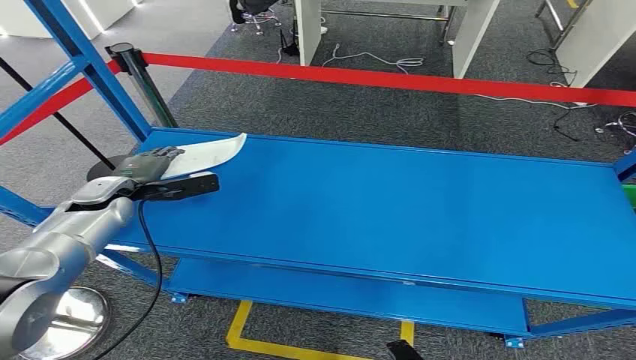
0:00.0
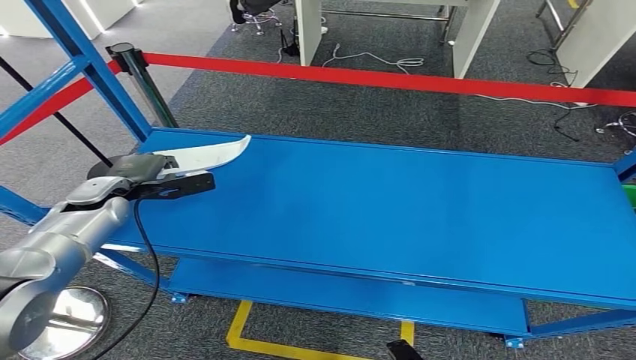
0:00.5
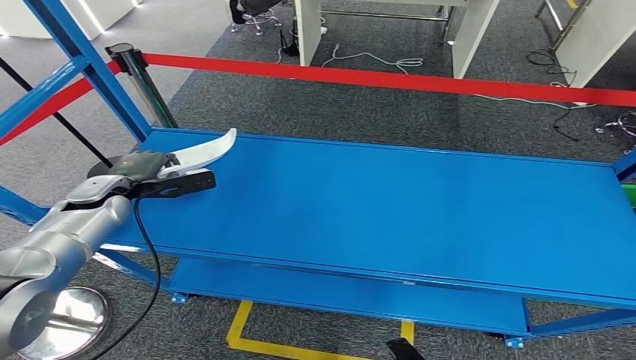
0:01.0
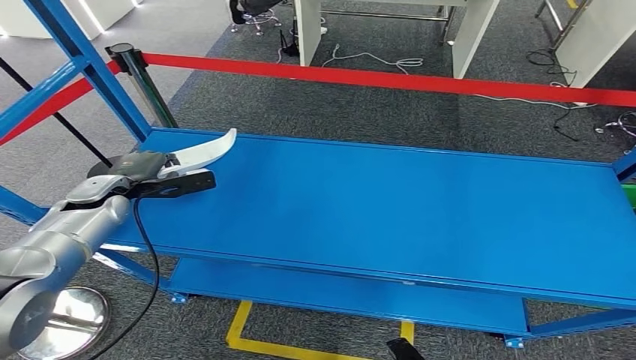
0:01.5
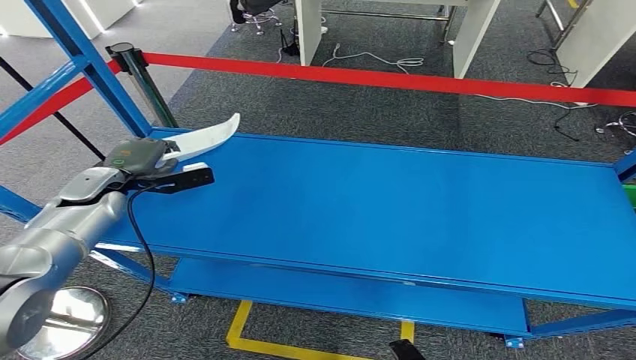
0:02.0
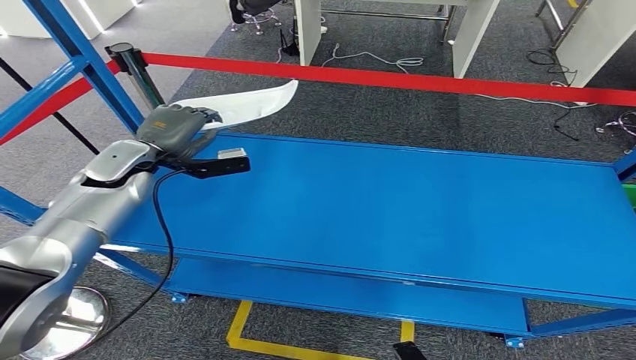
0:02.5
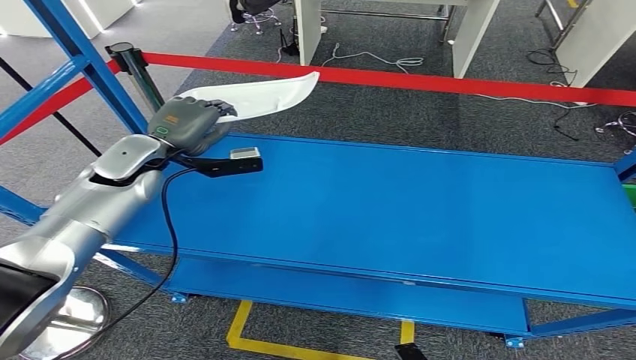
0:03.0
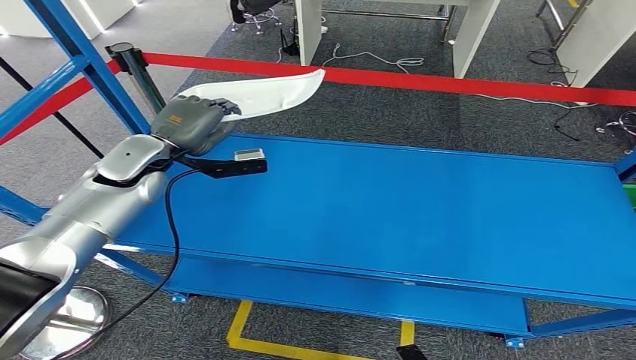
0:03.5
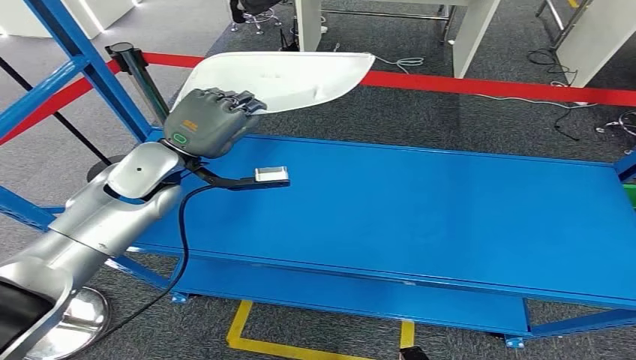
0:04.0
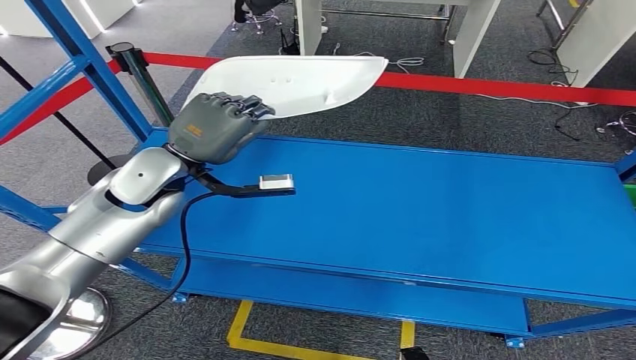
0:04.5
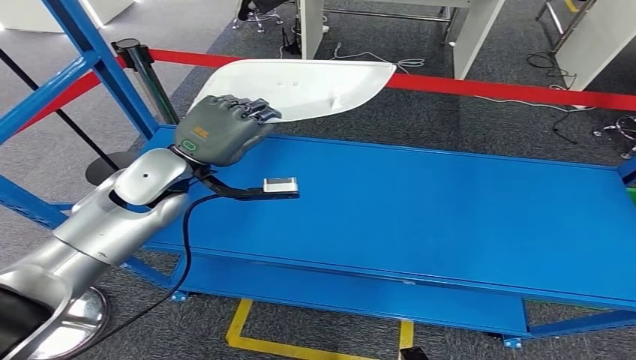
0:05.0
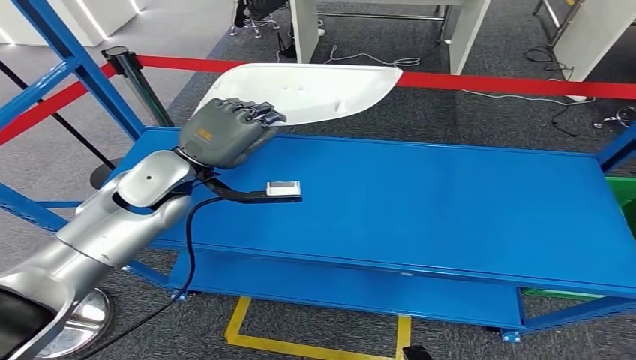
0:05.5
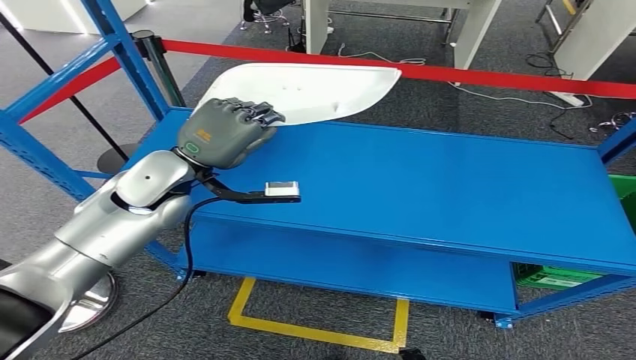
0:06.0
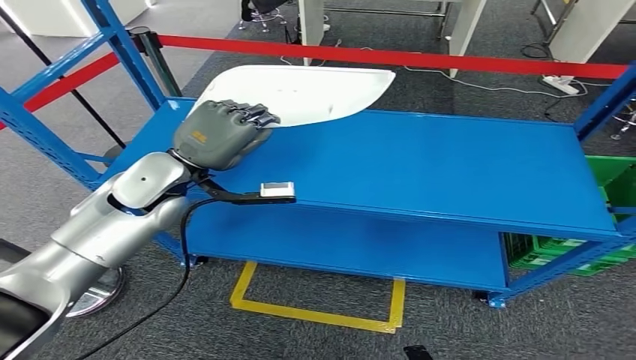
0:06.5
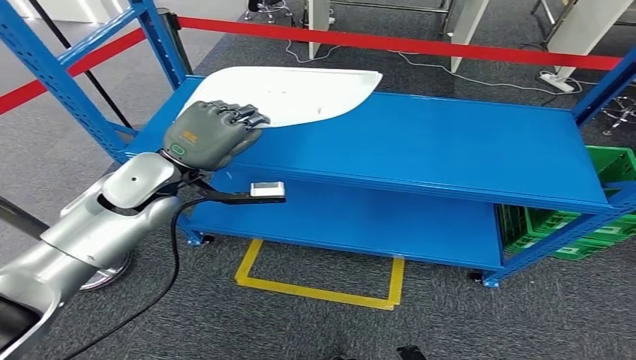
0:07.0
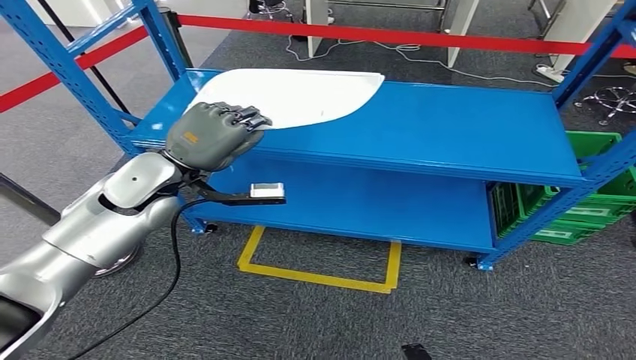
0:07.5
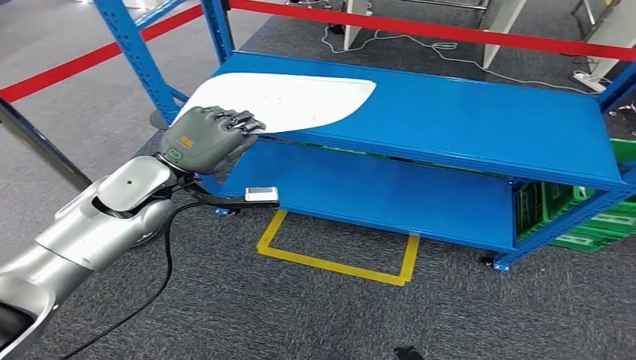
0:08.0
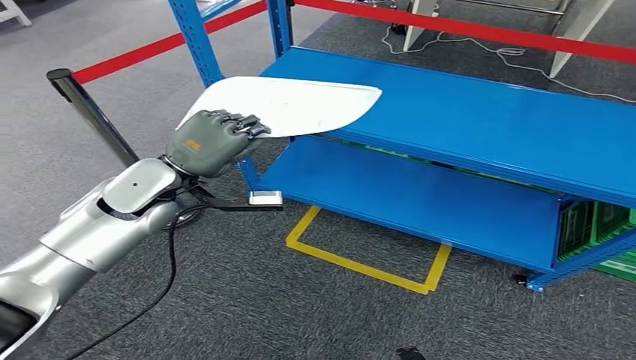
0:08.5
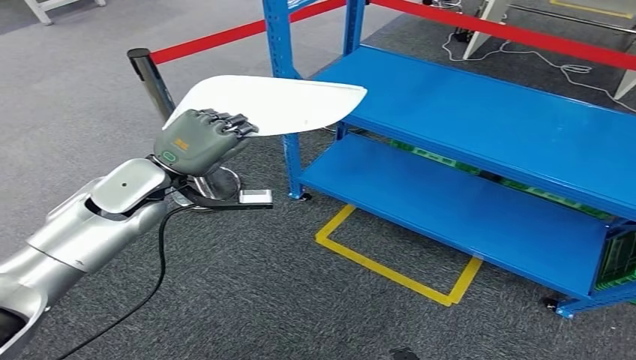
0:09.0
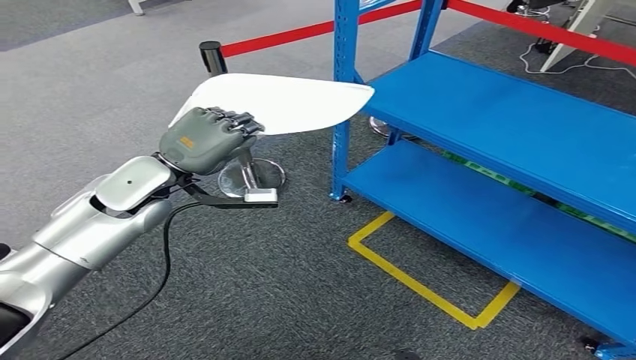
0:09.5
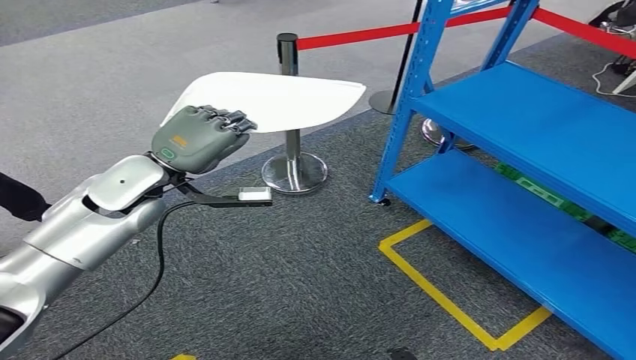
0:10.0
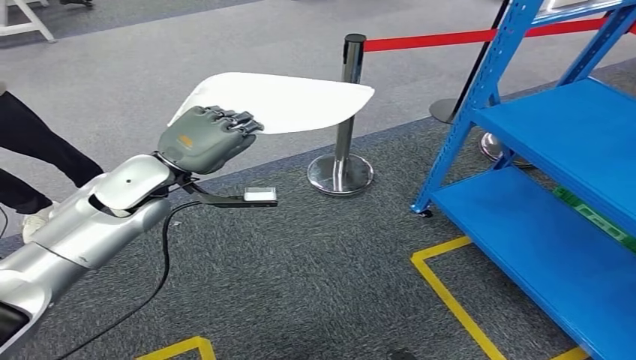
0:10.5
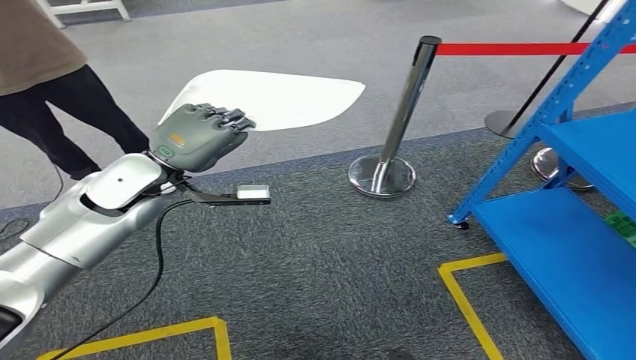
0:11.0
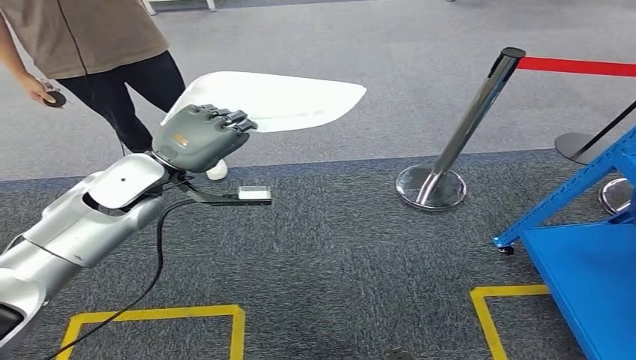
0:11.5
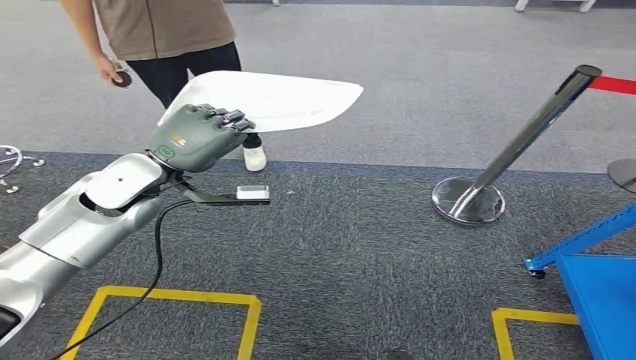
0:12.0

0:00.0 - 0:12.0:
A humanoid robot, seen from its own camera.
Step, 0:00.0 - 0:03.5: Pick up the small component from the shelf.
0:02.0 - 0:04.0: The left hand is displaced to the right and upward by about 15 cm.

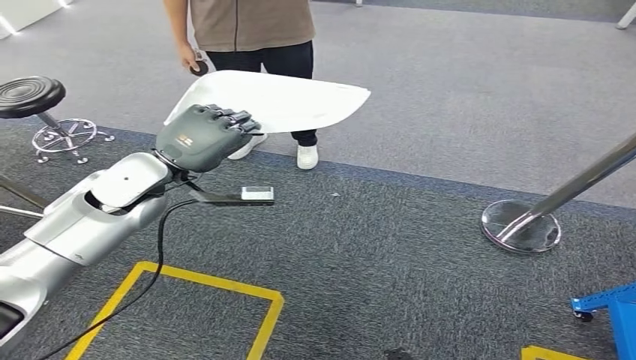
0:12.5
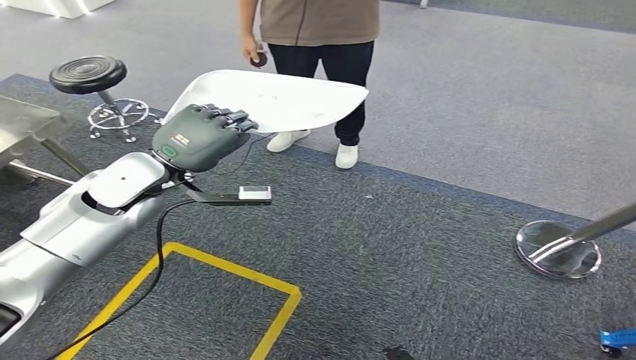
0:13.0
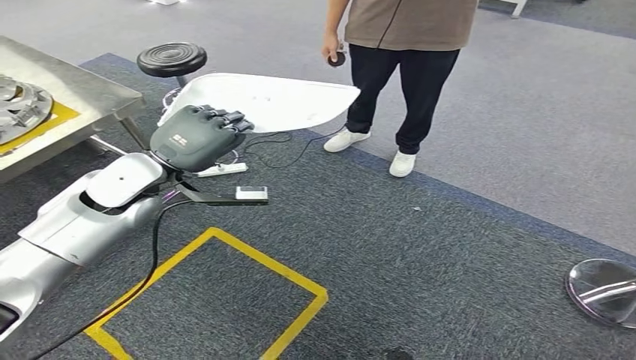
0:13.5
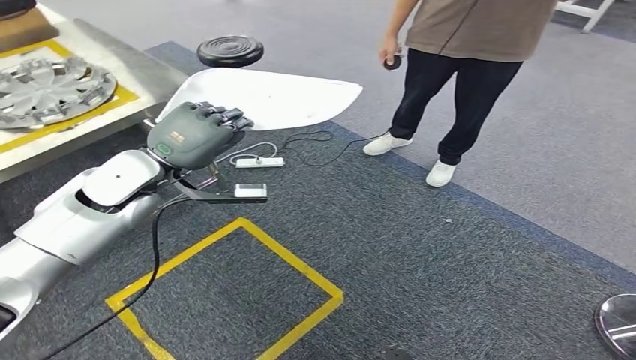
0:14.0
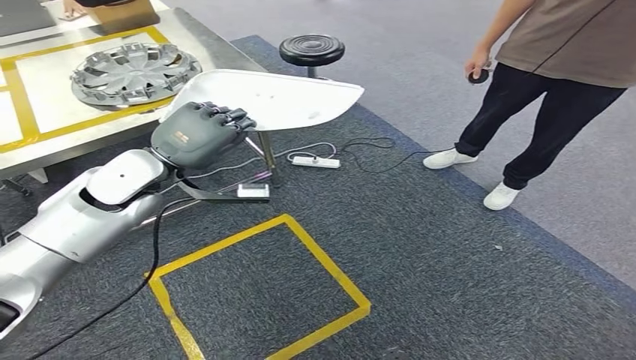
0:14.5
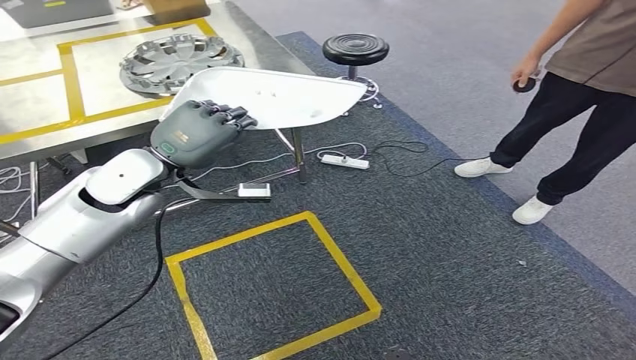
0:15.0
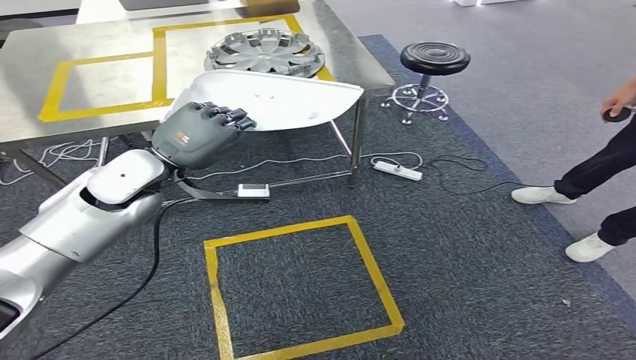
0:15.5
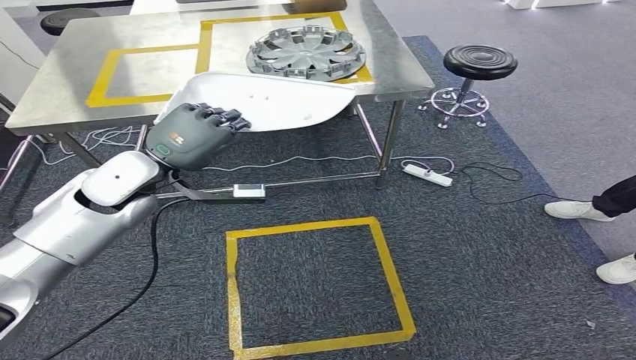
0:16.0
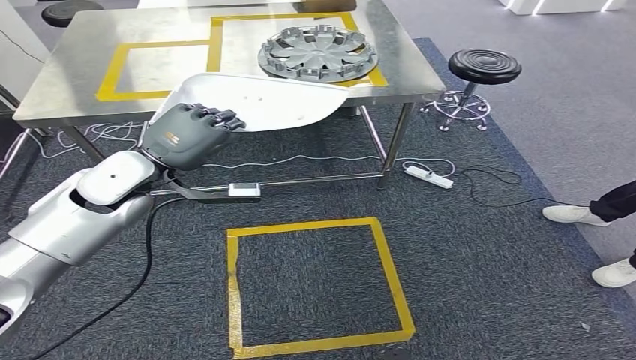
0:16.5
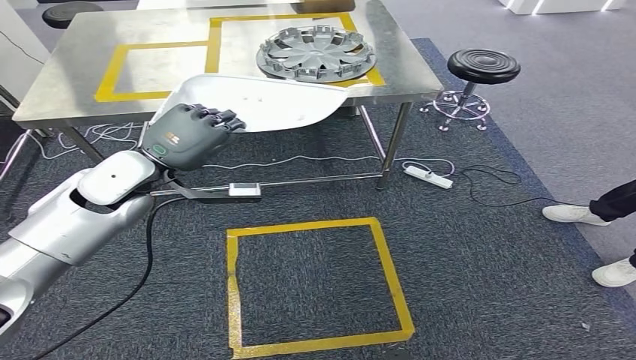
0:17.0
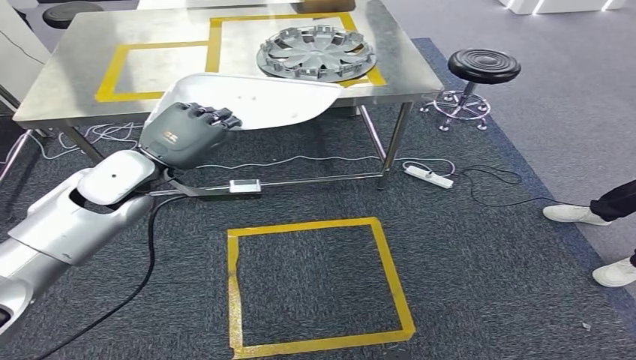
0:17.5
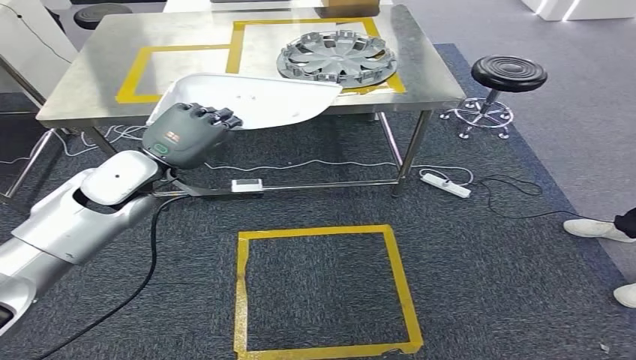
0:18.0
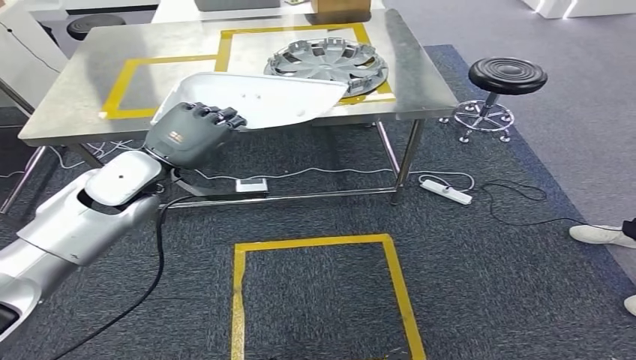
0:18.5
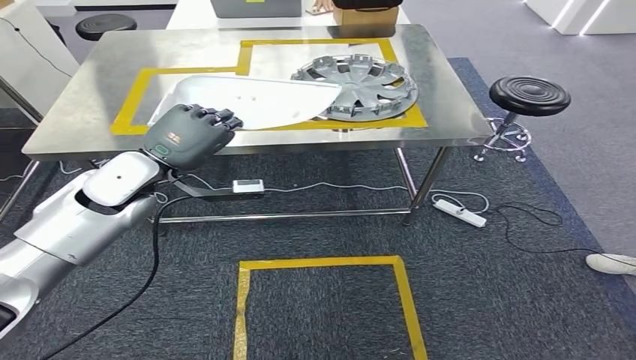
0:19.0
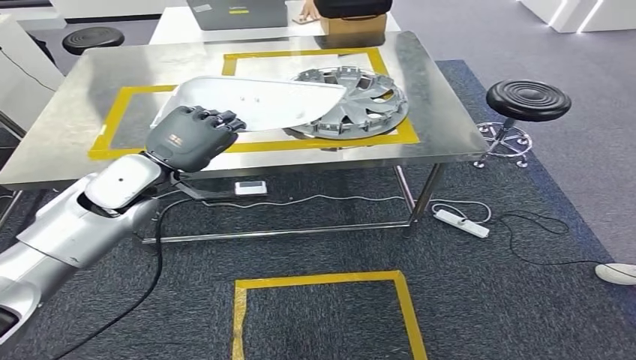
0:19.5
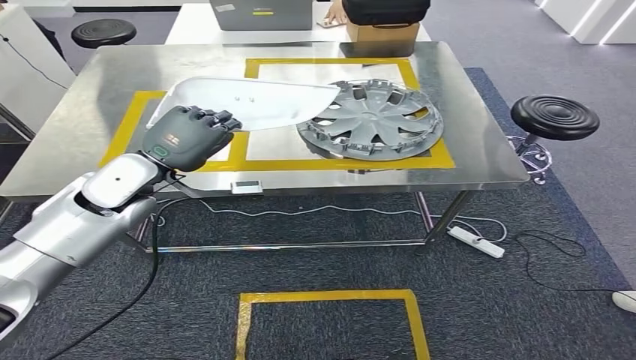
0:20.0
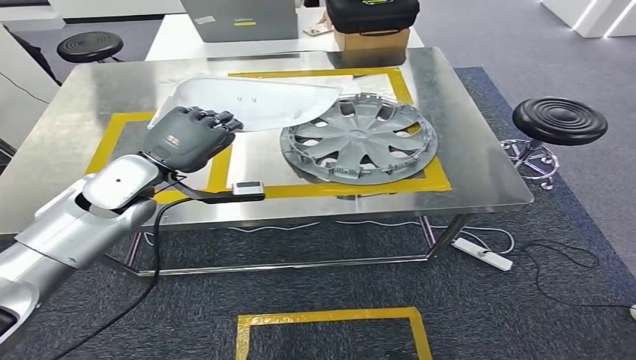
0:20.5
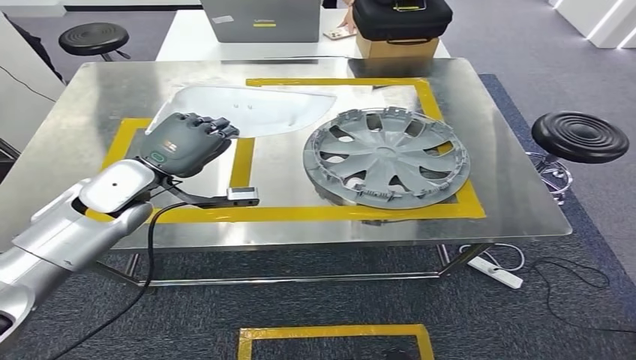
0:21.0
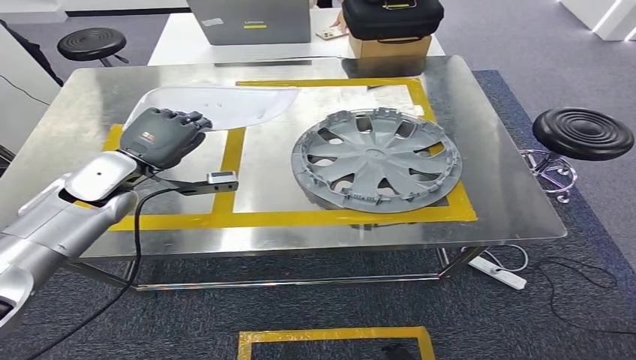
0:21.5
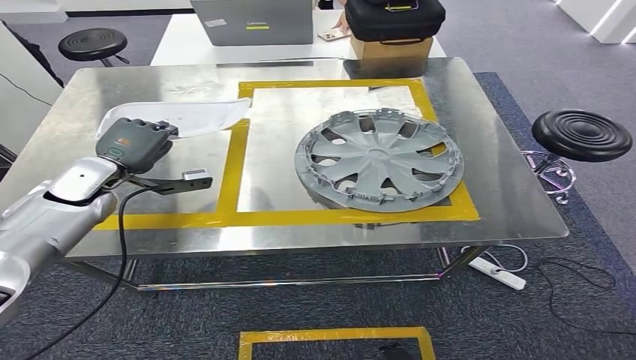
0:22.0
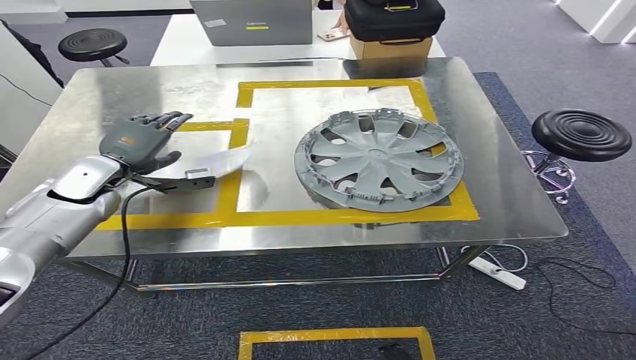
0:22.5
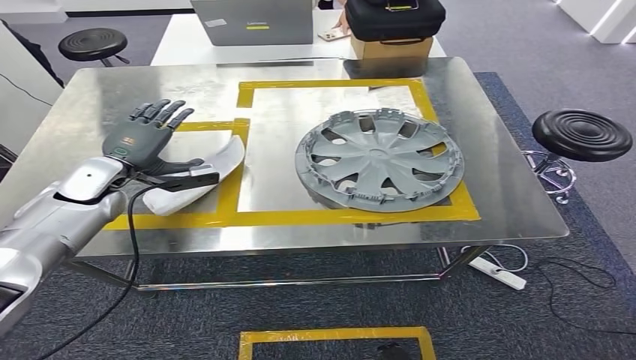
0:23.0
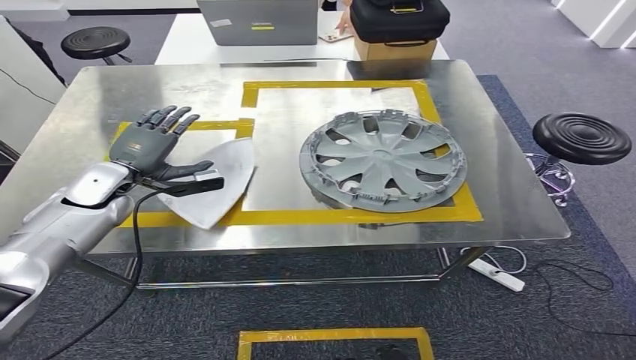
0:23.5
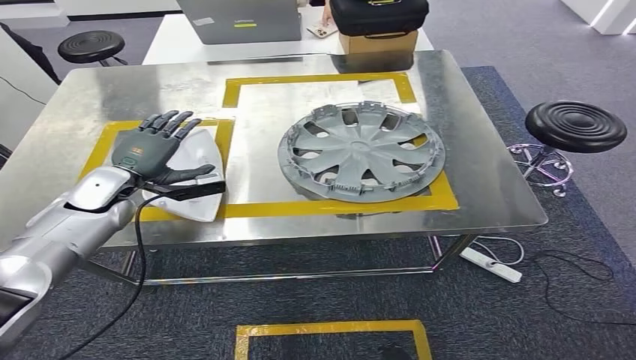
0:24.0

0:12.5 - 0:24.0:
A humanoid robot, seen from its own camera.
Step, 0:12.5 - 0:19.0: Bring the small component to the front of the workbench.
